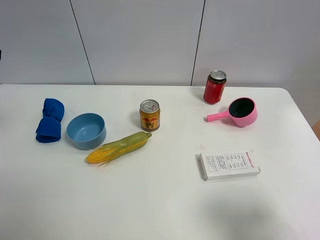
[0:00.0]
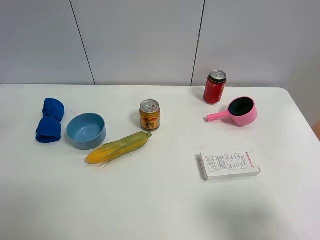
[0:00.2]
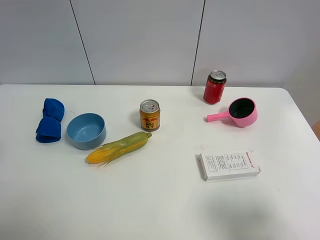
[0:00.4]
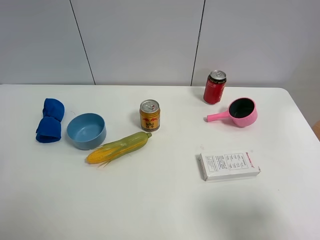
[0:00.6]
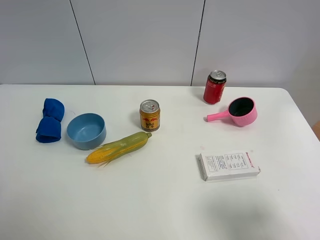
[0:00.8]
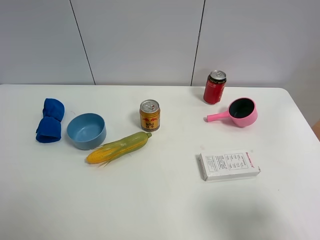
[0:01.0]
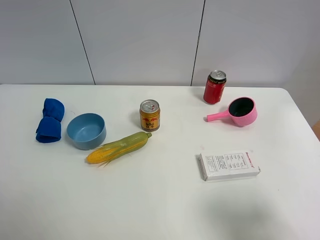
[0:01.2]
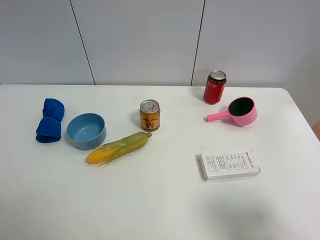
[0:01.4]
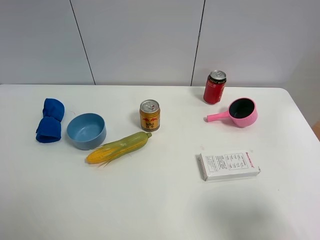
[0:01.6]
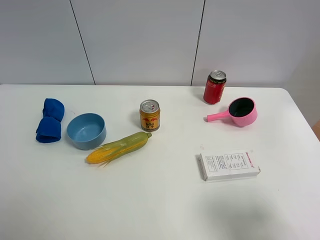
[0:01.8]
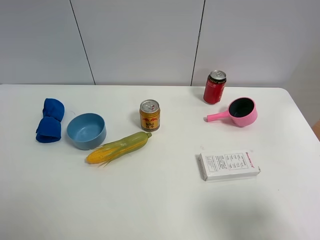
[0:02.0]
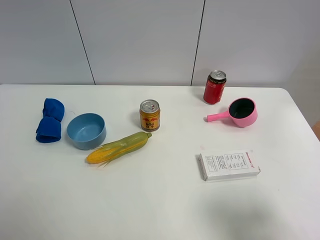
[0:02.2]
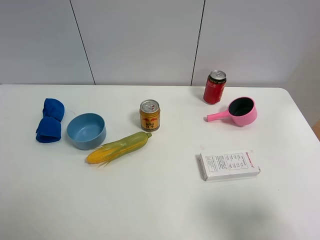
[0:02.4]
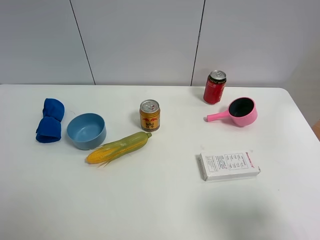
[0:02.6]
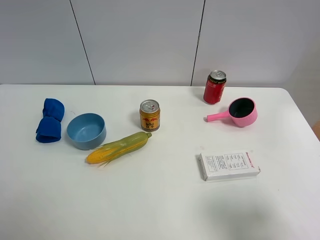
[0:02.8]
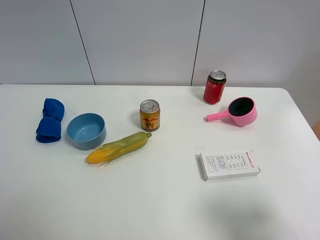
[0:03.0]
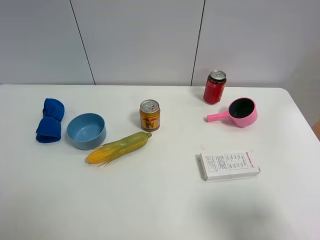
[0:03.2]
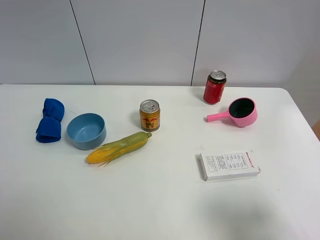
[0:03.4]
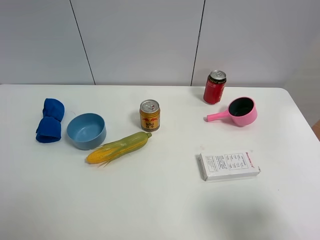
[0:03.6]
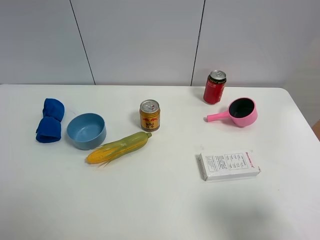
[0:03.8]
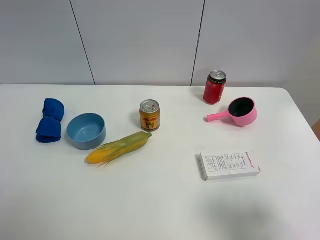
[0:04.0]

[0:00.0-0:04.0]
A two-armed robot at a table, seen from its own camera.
Task of the whole recording: the gripper move the object.
0:02.6 to 0:04.0: Both grippers stay about where they are.

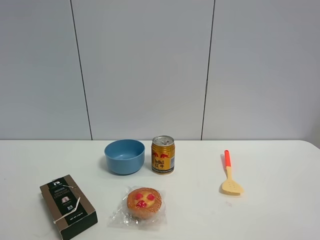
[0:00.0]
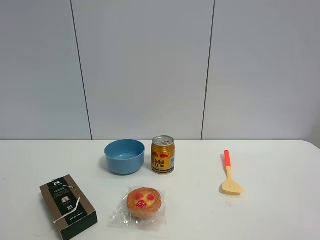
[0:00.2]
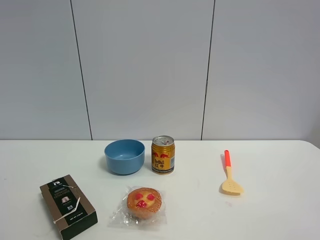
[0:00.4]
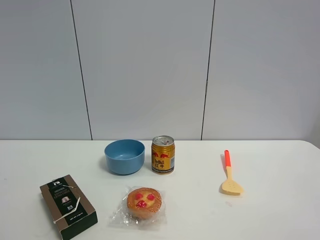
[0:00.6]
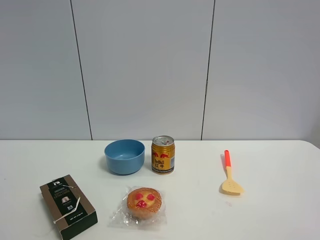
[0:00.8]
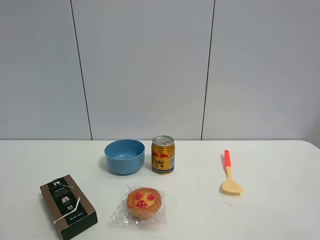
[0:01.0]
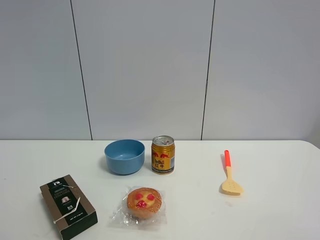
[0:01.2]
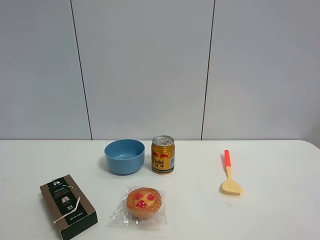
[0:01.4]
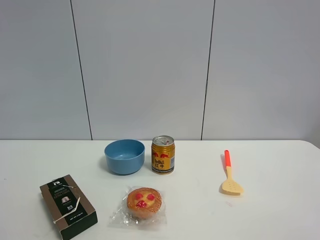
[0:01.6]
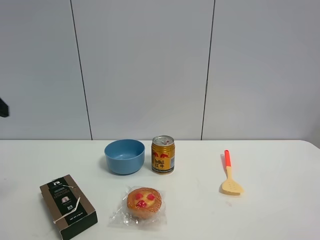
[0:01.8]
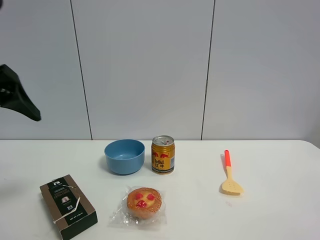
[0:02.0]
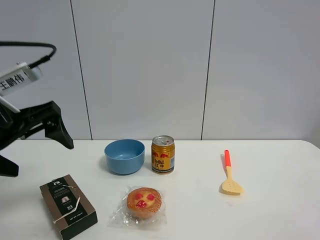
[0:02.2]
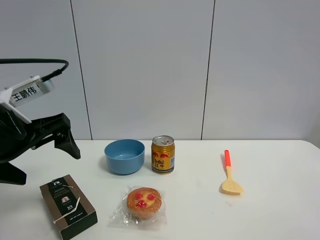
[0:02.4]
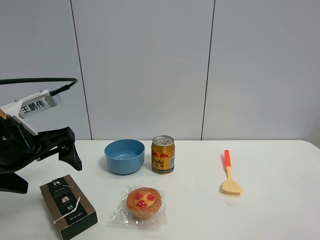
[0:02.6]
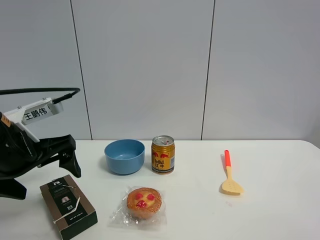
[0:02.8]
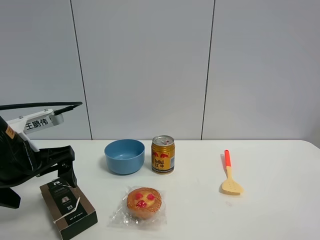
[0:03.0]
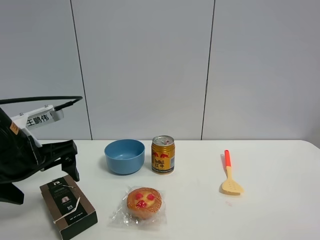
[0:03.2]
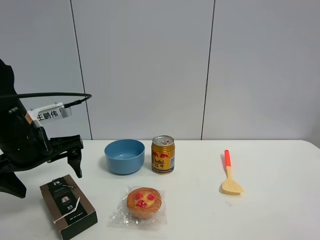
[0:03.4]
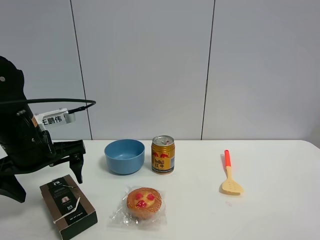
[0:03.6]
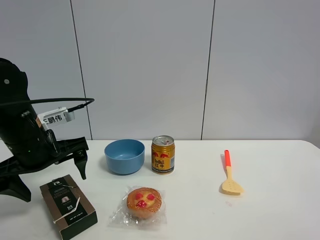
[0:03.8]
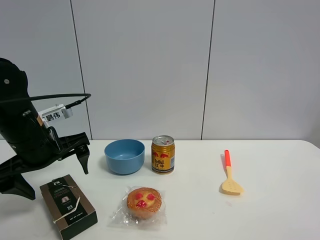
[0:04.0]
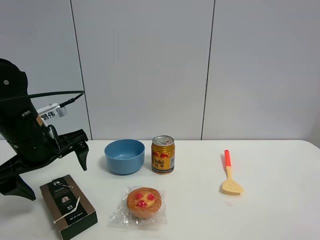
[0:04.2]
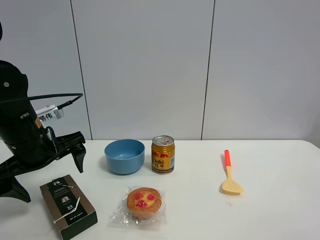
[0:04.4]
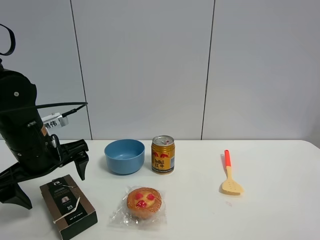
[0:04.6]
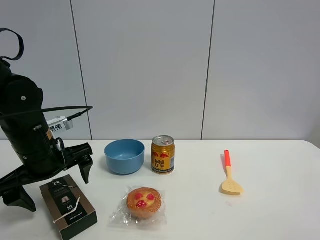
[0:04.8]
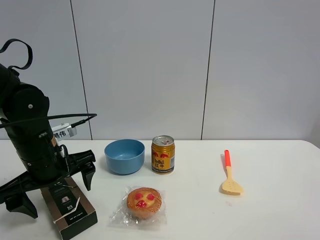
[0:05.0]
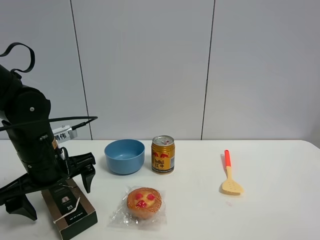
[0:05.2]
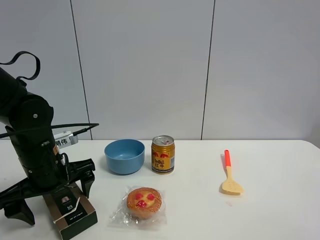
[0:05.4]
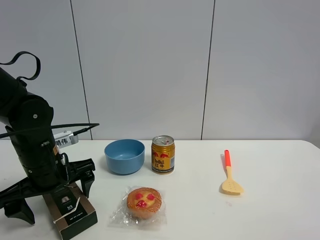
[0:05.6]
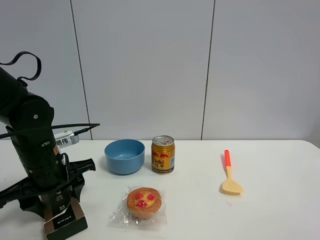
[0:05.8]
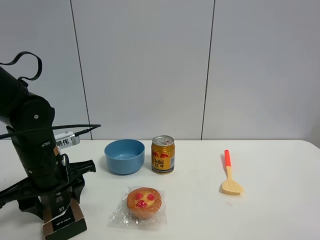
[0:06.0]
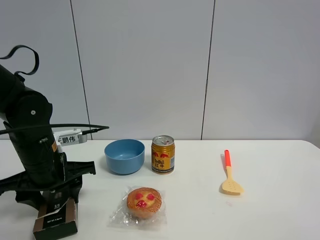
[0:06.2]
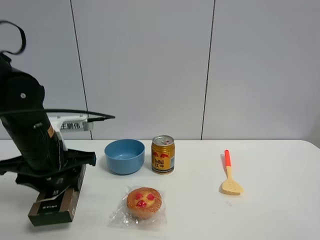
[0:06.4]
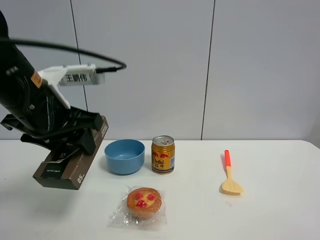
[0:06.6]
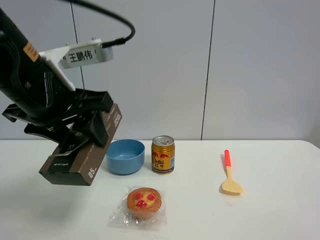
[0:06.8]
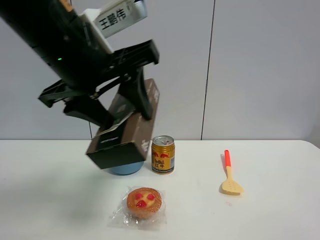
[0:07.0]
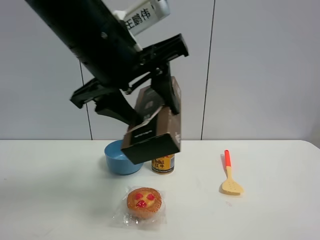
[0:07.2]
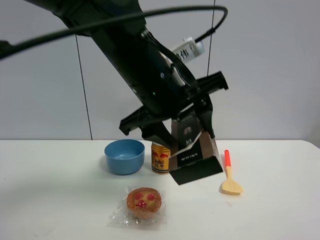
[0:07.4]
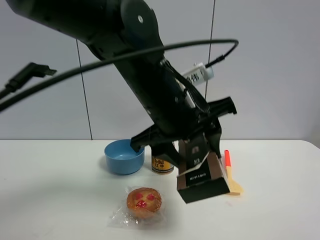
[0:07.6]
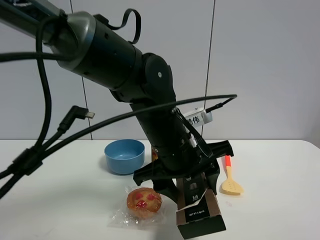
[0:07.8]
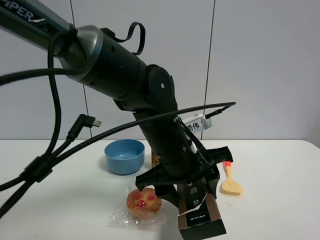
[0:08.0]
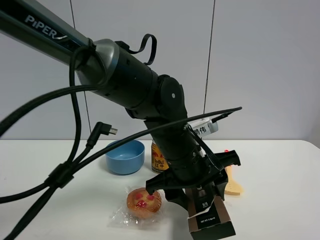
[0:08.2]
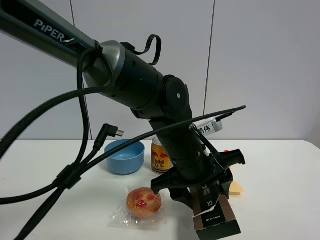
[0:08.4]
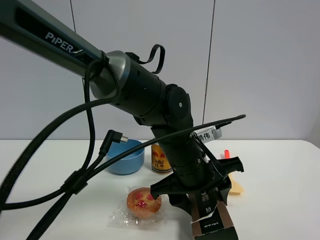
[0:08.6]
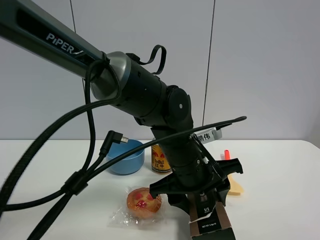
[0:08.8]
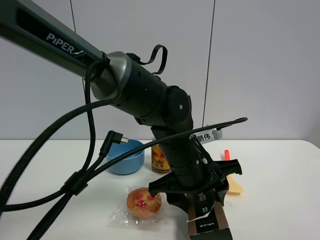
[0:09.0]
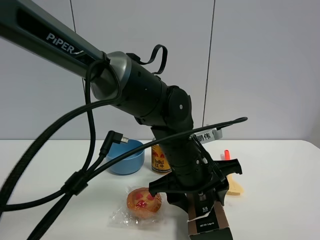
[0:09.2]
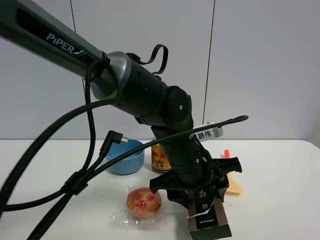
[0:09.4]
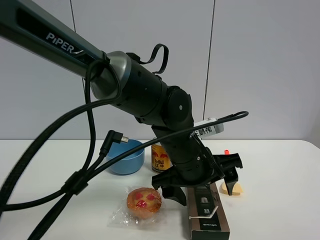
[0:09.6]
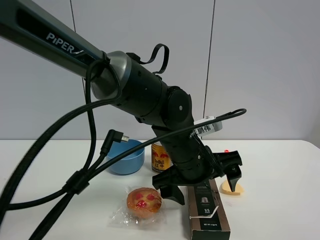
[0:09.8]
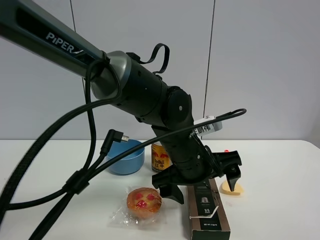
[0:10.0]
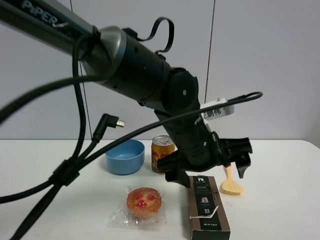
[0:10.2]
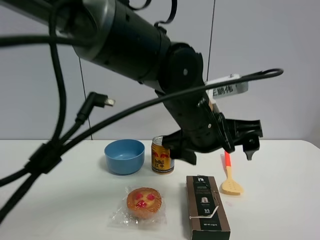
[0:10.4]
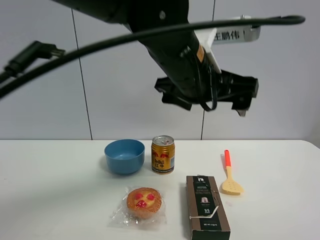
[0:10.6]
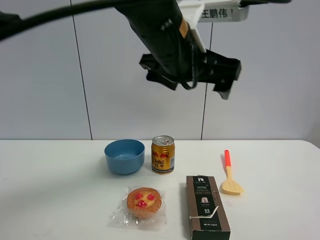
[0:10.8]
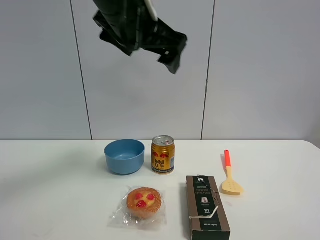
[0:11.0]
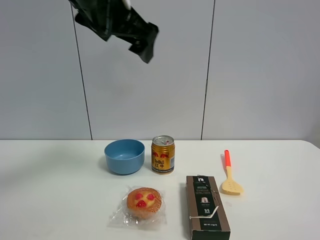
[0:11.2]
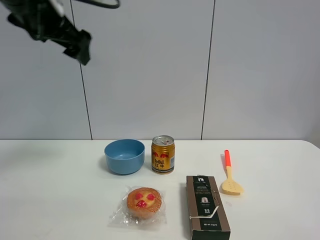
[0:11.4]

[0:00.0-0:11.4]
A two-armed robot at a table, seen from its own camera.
Task of the whole recording: the gripper move the object.
Step, 0:00.0 to 0:05.8: Grasp the Luckin Coffee box with the left gripper.
Step, 0:06.0 to 0:09.6: Place the Luckin Coffee box on the table with the left gripper.
0:01.4 to 0:02.8: The left gripper is displaced downward, forward and to the right by about 25 cm.
0:04.2 to 0:05.6: The left gripper shifts approximately 5 cm downward.
0:05.6 to 0:07.2: The left gripper travels upward and to the right by about 25 cm, and closes its fingers.
0:07.2 to 0:08.6: The left gripper is displaced downward and to the right by some 20 cm.
0:08.6 to 0:10.0: The left gripper opens.
0:10.0 to 0:11.4: The left gripper is displaced to the left and upward by approximately 35 cm.

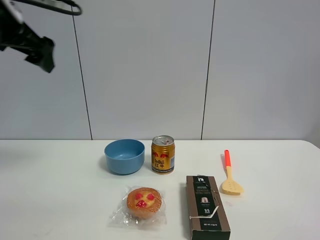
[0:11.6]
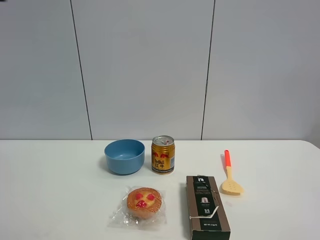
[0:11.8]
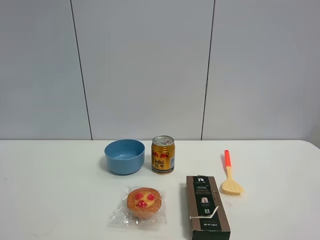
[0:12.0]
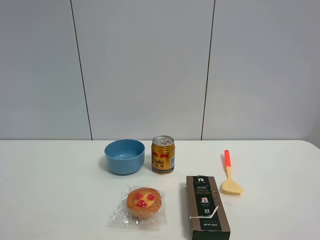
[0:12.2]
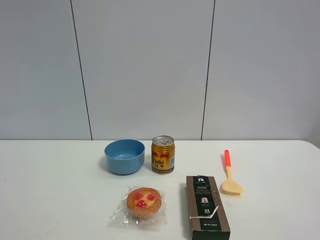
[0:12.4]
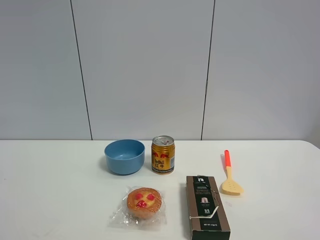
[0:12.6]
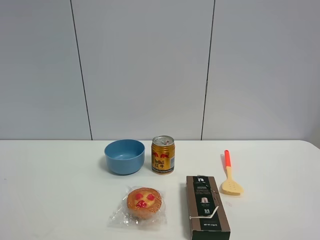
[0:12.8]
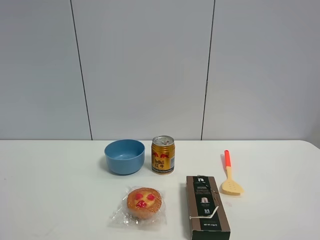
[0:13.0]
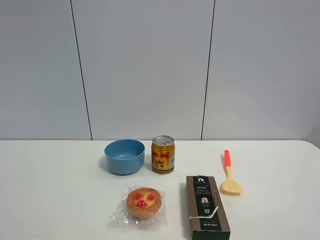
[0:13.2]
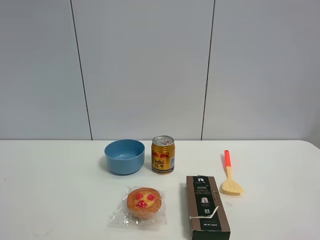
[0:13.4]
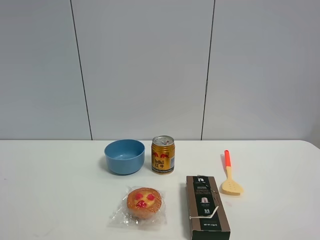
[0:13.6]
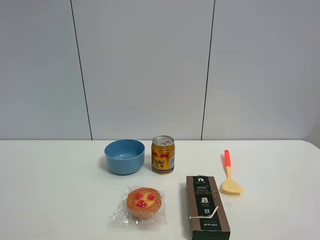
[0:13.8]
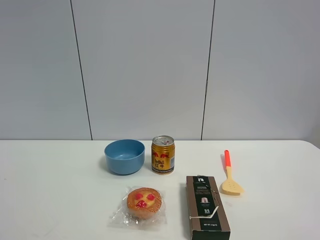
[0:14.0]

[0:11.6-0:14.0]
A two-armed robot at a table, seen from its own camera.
Task of the whole recording: the gripper move the object.
0:11.6 to 0:12.8: The left gripper is displaced backward by about 30 cm.

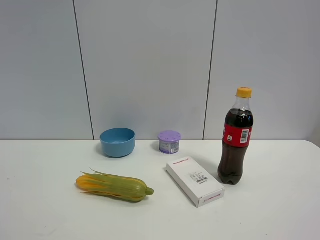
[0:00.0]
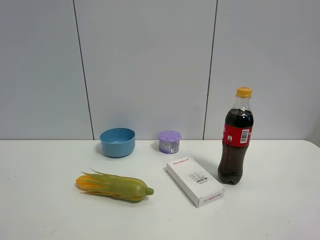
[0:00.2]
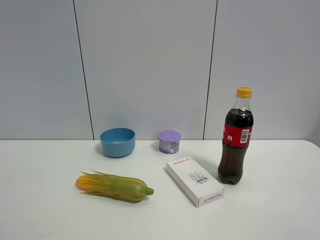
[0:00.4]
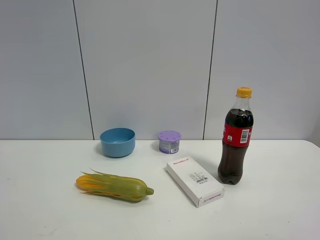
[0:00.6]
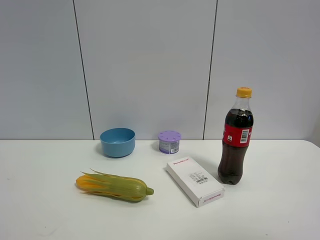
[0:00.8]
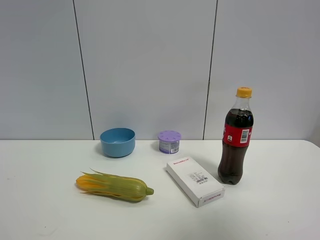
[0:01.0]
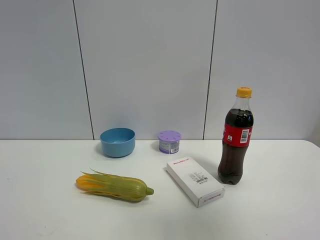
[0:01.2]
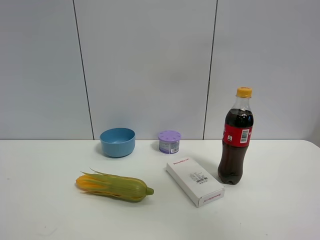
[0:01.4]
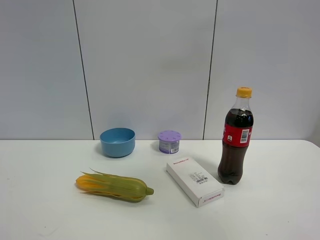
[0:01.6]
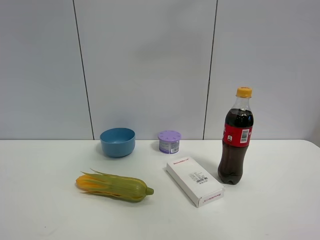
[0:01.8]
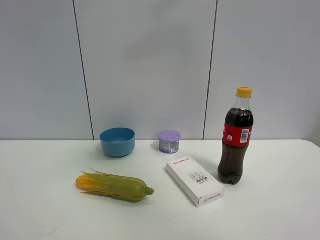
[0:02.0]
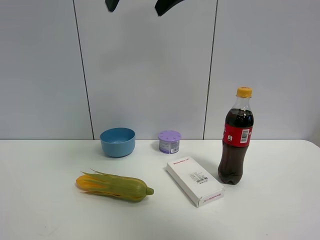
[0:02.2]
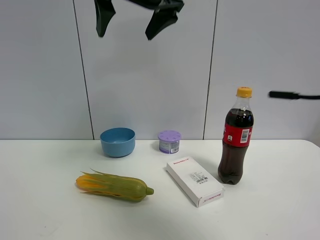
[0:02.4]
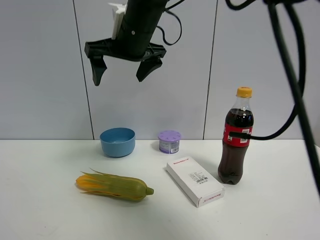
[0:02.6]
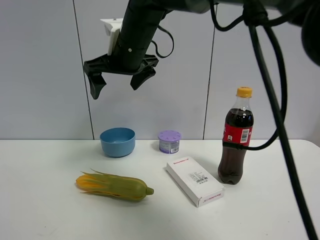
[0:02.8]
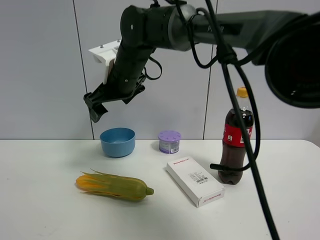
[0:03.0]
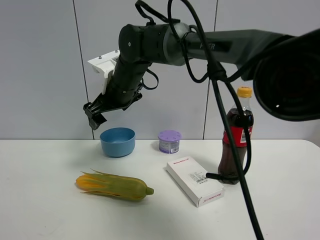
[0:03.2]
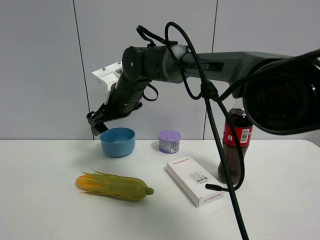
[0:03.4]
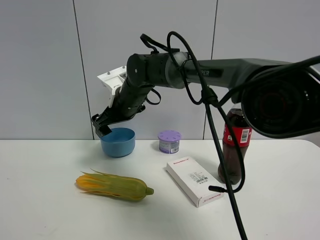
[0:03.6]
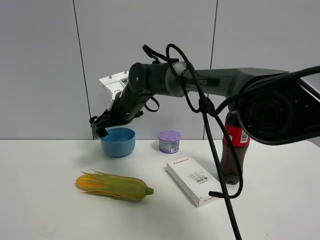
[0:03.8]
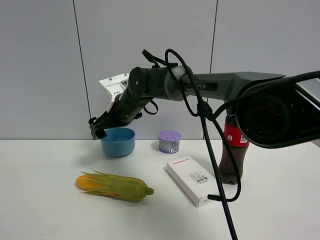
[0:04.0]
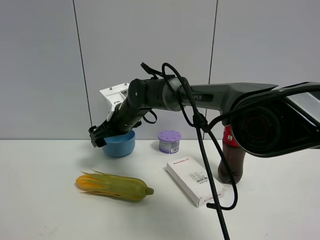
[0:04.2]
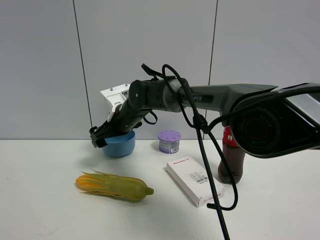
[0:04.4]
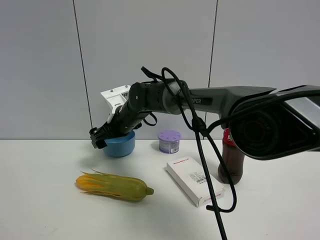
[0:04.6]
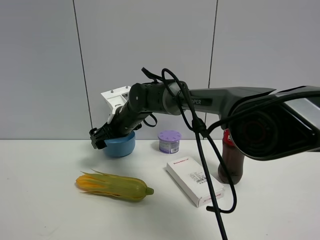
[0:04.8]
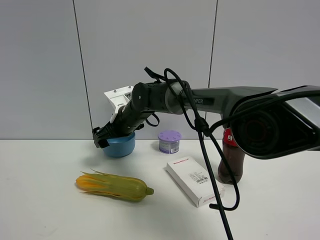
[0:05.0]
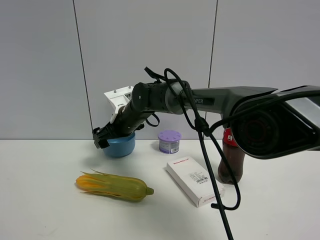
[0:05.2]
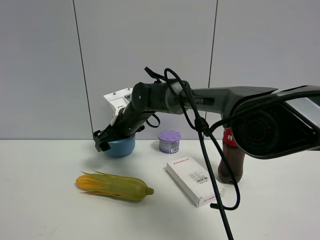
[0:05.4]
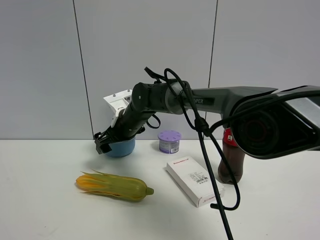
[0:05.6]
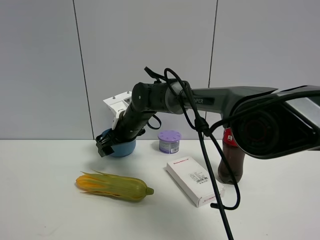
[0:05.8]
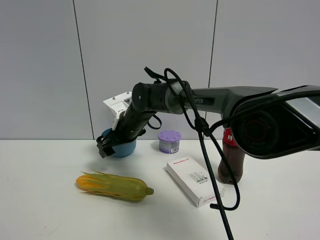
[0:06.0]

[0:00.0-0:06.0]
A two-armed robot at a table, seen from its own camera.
Task of the whole recording: the gripper move the object.
0:00.0 to 0:01.6: The right gripper travels upward and forward by some 30 cm.
0:01.6 to 0:03.0: The right gripper shifts some 40 cm to the left, downward and forward.
0:03.0 to 0:04.4: The right gripper shifts some 10 cm downward.
0:04.4 to 0:06.0: There are only small adjustments of the grippers.
